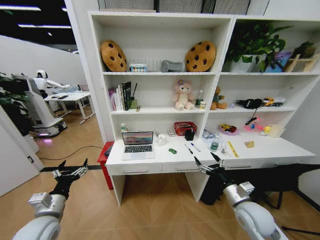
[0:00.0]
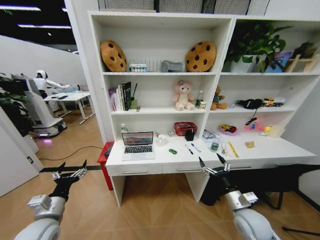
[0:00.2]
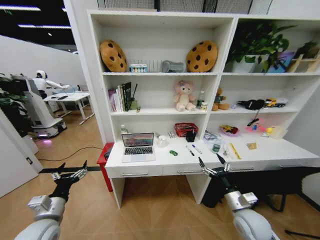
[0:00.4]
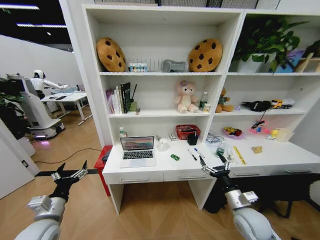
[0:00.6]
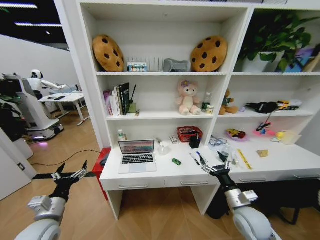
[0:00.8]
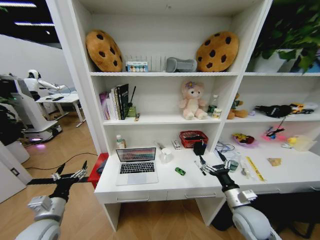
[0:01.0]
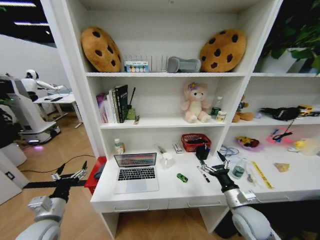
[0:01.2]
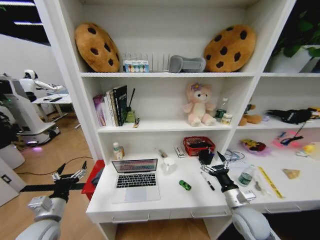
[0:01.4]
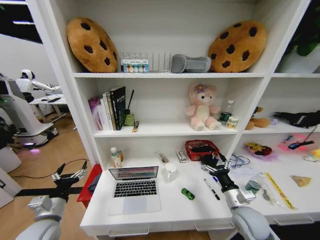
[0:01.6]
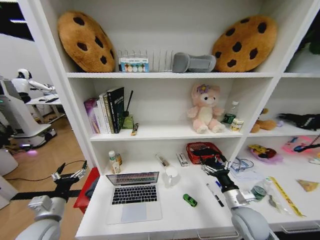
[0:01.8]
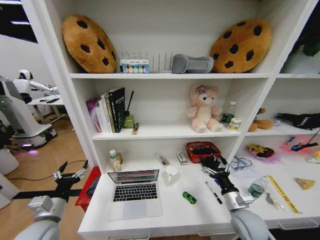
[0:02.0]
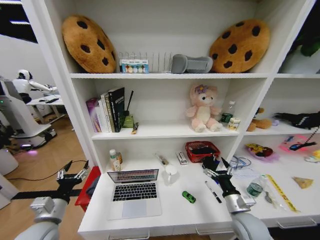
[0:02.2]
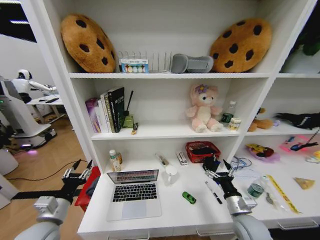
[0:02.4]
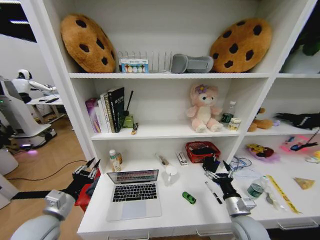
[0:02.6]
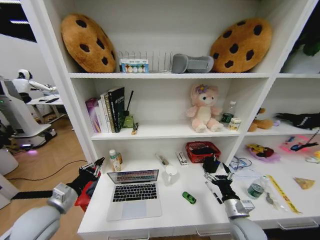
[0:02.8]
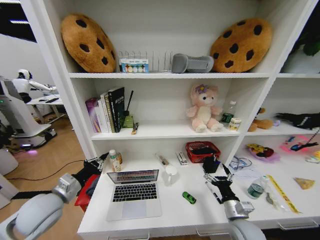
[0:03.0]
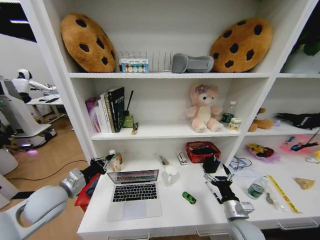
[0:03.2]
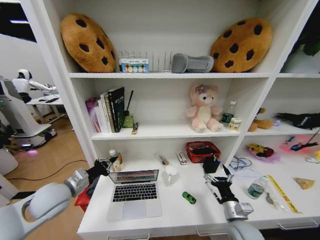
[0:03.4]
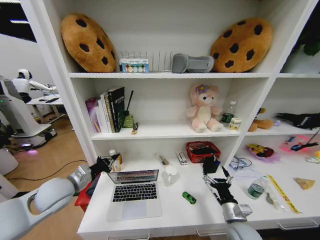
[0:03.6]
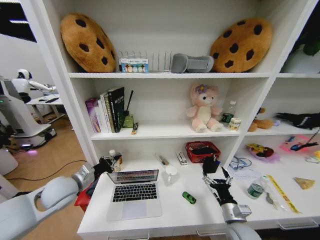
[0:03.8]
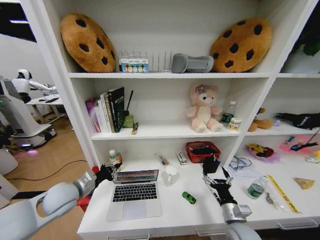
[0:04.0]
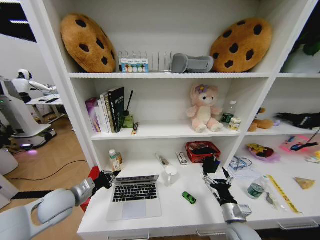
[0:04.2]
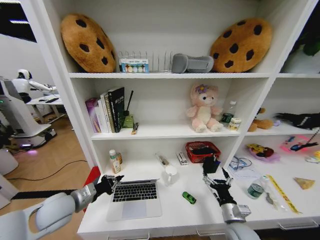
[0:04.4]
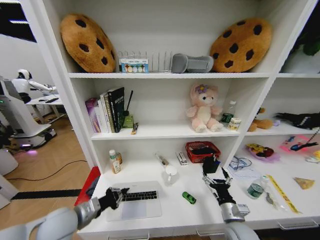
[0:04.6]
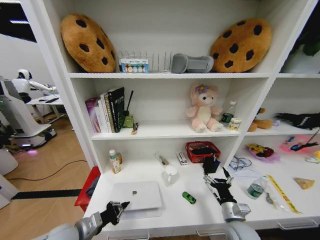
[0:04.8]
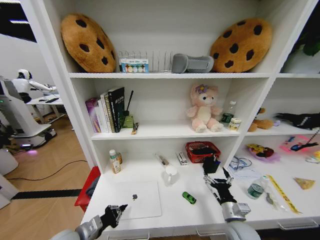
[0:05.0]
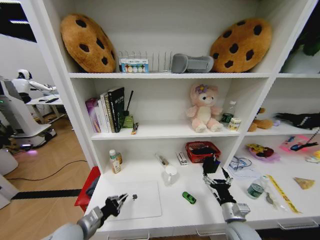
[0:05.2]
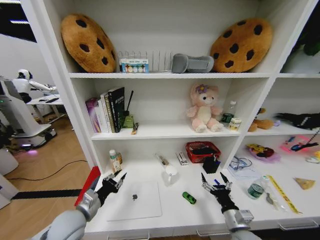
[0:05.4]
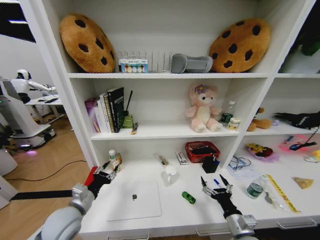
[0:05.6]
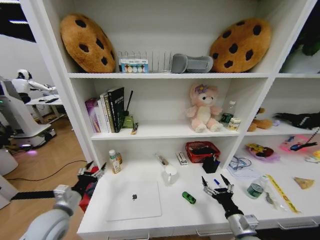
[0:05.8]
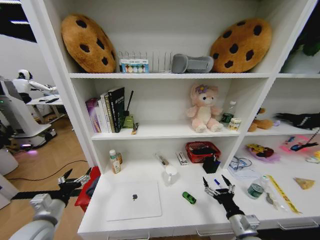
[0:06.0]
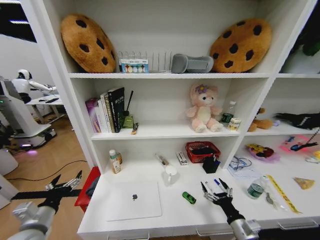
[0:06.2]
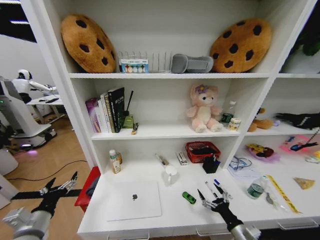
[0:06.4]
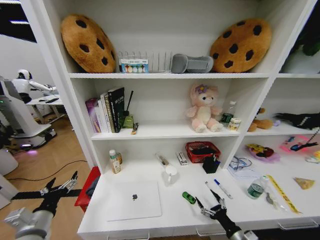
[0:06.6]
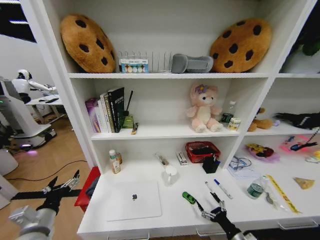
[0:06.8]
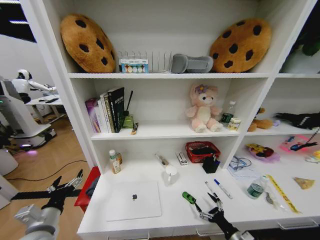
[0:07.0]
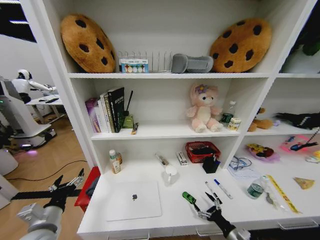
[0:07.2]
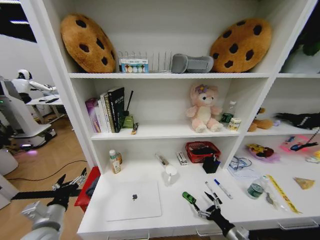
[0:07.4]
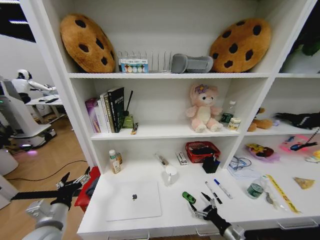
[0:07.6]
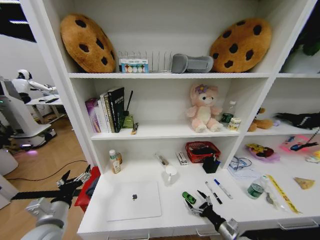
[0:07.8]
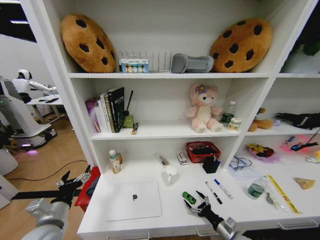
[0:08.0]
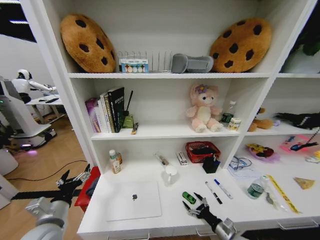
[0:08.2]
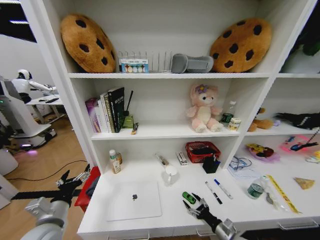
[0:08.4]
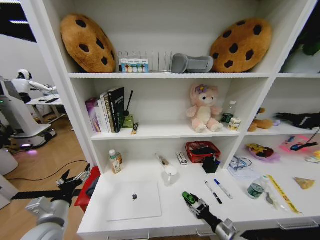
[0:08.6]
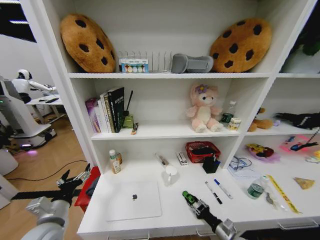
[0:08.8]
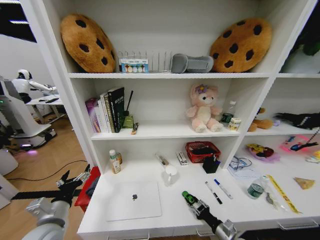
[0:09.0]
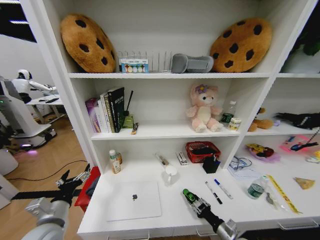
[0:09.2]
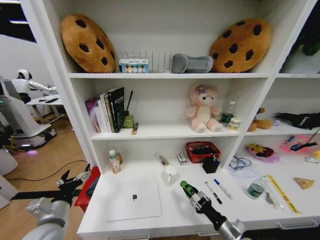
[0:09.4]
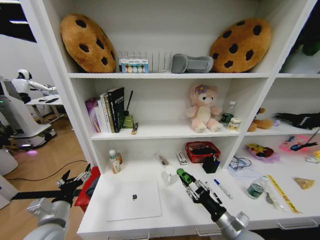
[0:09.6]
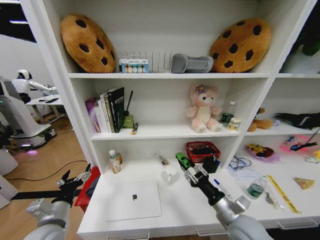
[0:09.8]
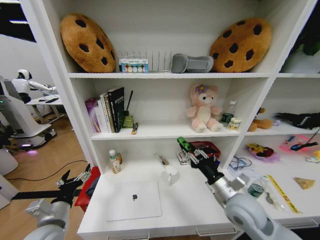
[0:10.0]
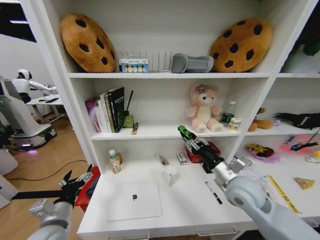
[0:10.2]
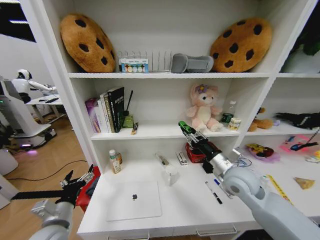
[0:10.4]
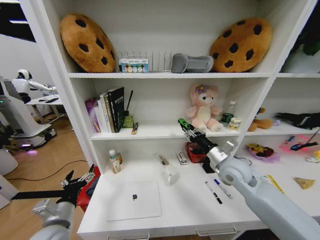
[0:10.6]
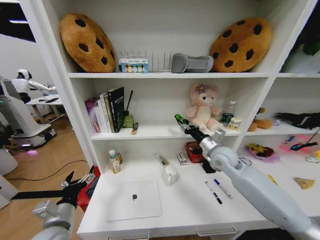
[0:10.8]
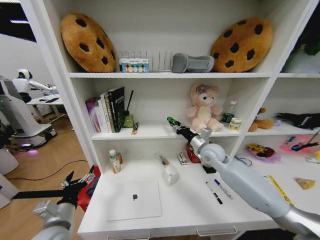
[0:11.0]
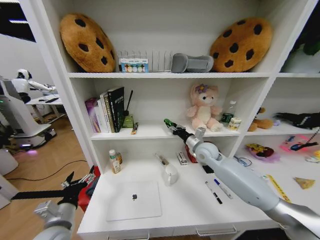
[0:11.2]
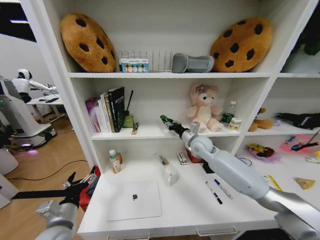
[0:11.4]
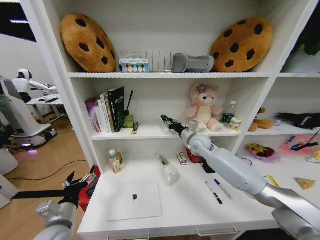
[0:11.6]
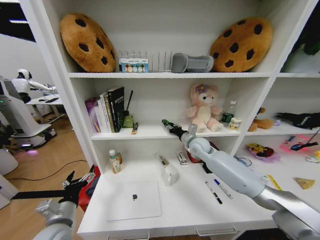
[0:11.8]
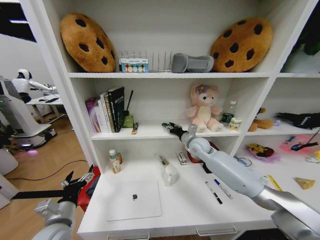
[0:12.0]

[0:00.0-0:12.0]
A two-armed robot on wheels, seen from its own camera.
Task of the whole recording: Organize the objects on the table.
0:01.6 to 0:03.0: The left gripper travels upward by about 5 cm, and closes.
0:04.4 to 0:06.0: The left gripper is displaced backward and to the left by approximately 10 cm, and opens up.
0:06.0 to 0:07.6: The right gripper goes roughly 10 cm downward.
0:07.6 to 0:09.0: The right gripper closes up.
0:09.0 to 0:10.4: The right gripper is displaced upward and forward by about 30 cm.
0:10.4 to 0:12.0: The right gripper is displaced forward by roughly 20 cm.

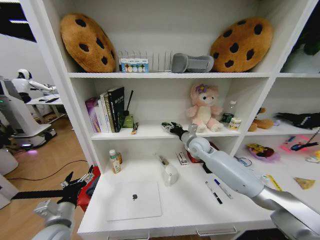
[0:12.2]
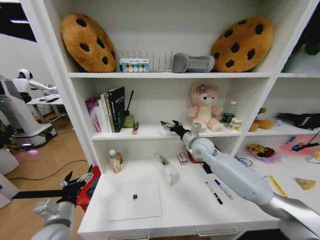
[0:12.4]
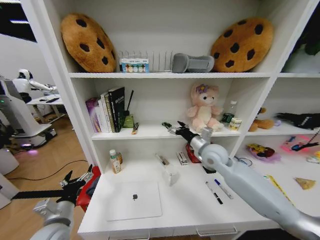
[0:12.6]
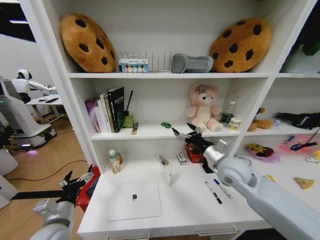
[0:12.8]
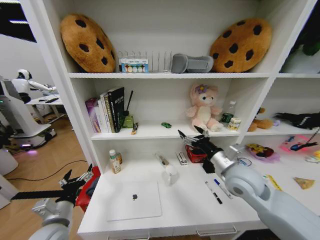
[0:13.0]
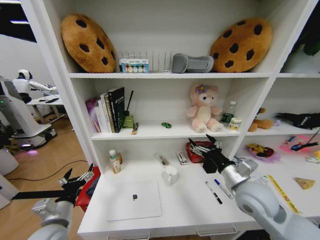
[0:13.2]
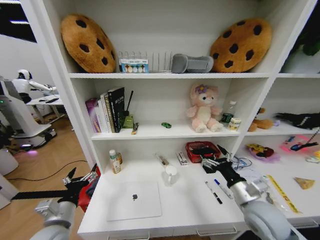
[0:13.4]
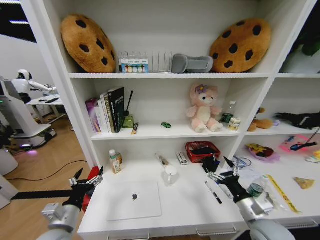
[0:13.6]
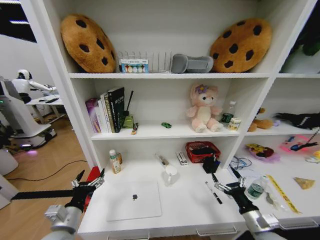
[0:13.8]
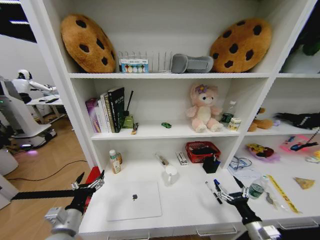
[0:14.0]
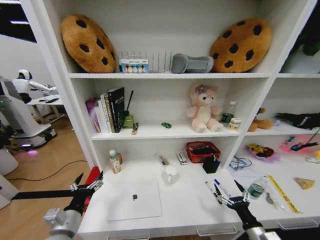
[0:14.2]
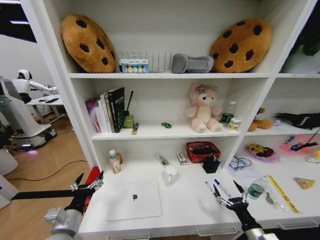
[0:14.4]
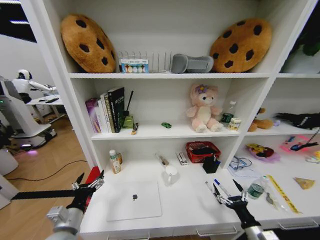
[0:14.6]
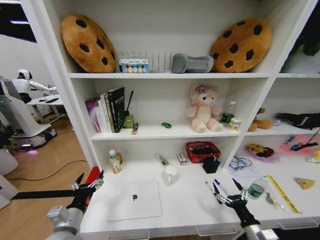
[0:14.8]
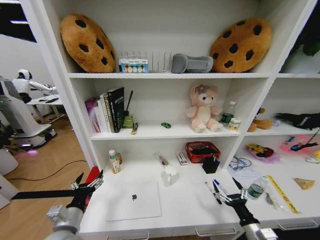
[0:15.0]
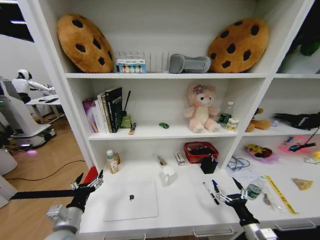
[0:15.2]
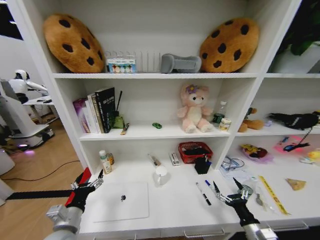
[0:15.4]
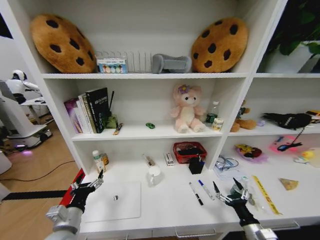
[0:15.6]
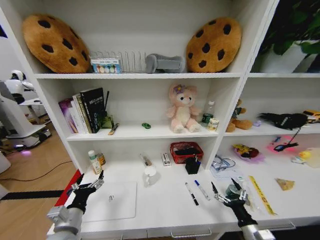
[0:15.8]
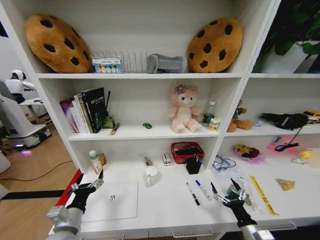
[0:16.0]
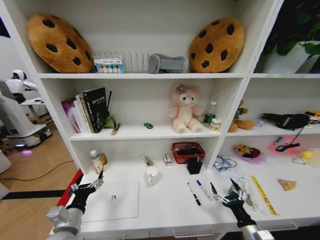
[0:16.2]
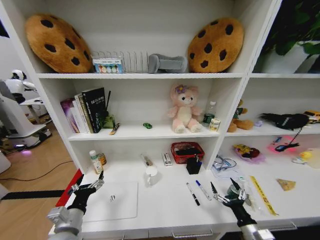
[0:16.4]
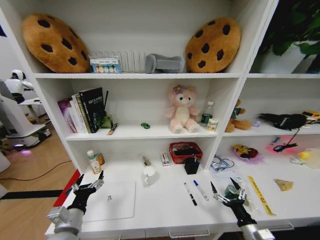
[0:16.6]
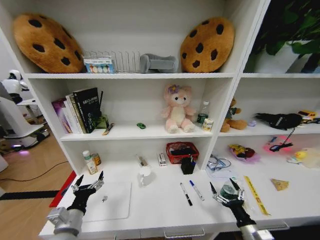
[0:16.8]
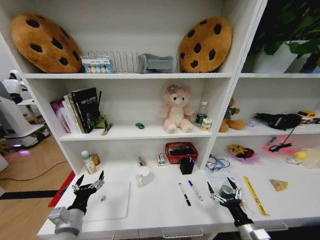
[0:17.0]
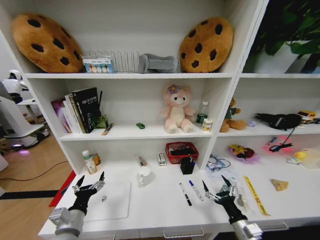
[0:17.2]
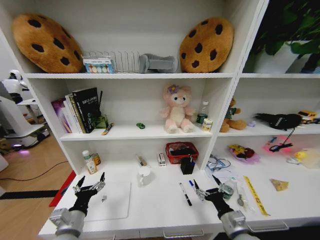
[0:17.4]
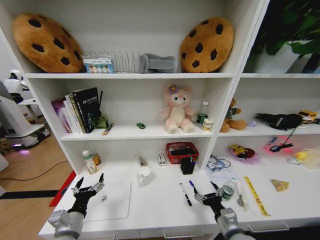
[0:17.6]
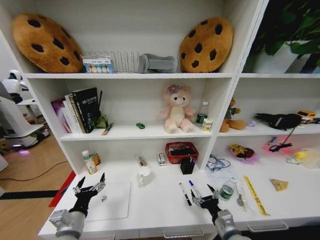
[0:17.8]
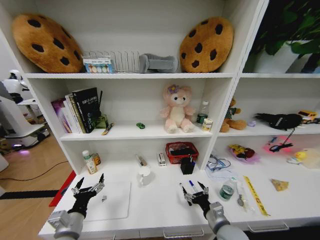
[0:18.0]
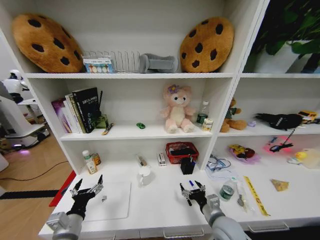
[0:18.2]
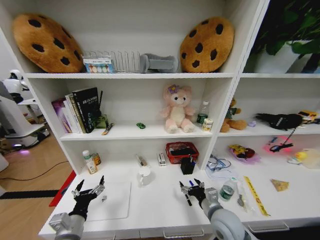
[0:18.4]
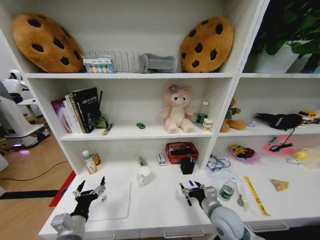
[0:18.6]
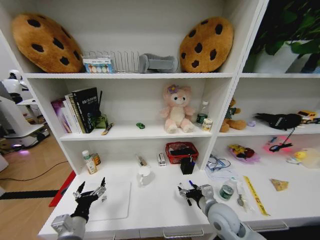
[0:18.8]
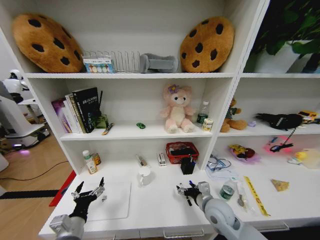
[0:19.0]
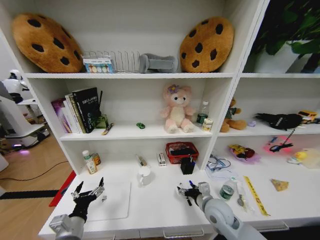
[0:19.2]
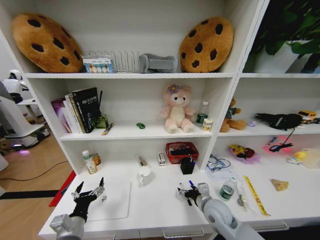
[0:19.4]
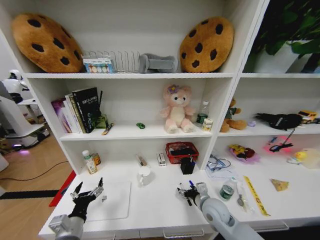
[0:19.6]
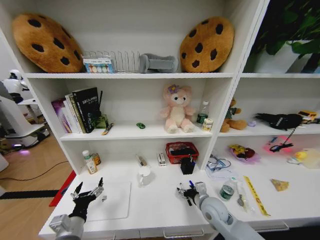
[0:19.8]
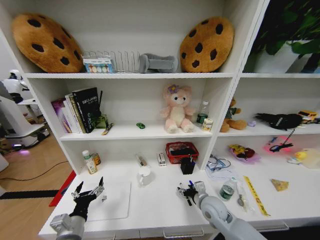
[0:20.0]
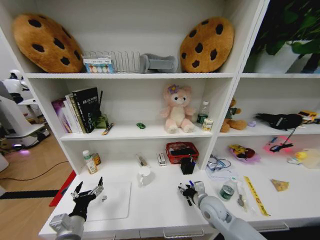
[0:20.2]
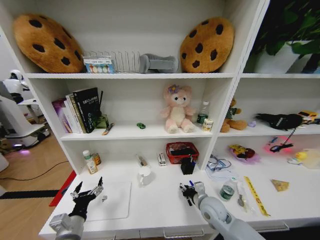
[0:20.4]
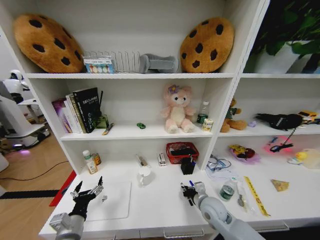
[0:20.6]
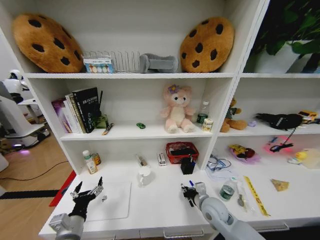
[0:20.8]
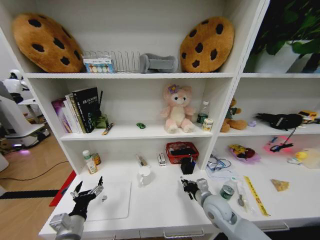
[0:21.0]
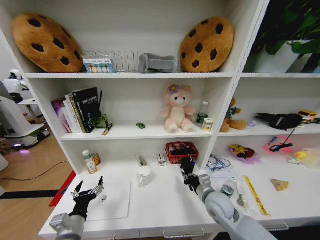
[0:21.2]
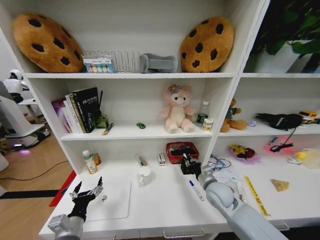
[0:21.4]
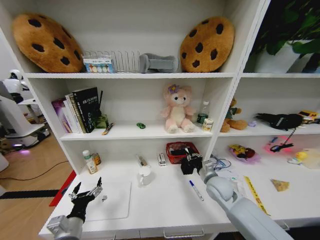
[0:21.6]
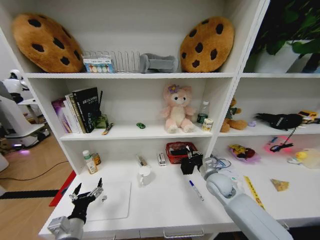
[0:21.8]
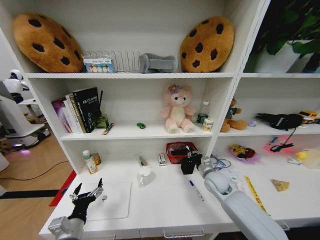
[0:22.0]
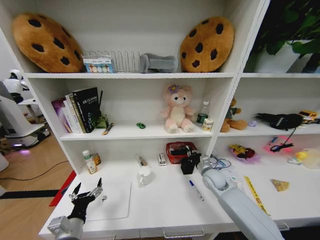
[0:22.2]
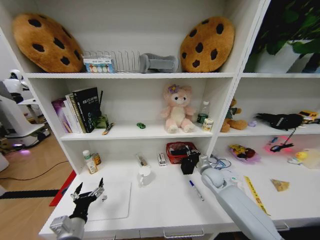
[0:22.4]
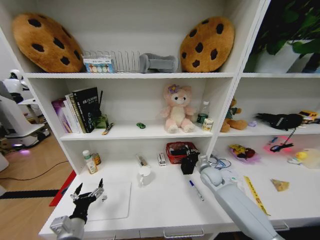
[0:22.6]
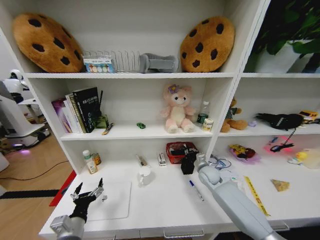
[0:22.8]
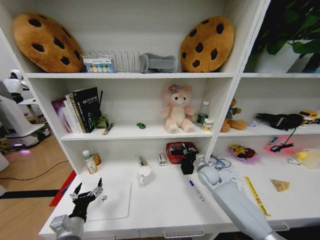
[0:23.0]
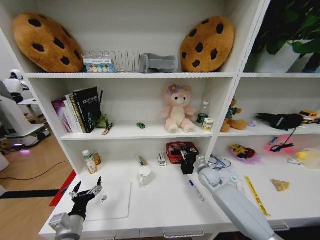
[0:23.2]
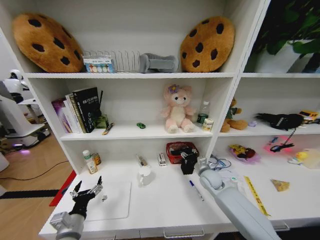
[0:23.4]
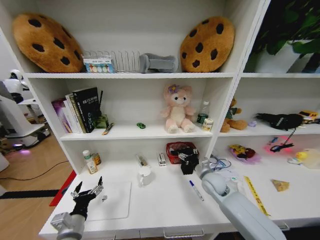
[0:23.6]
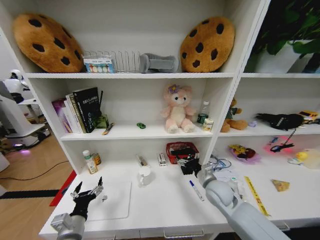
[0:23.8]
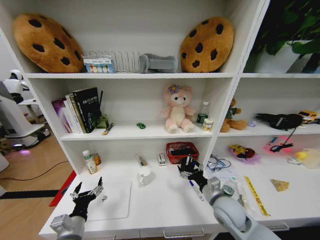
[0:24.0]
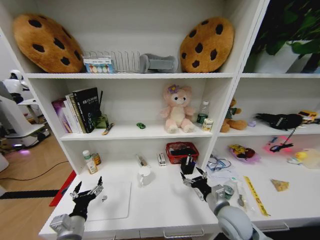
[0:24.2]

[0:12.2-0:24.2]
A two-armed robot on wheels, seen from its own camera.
Task of the whole recording: Organize the objects on the table.
0:12.2 to 0:13.8: The right gripper goes roughly 40 cm backward, to the right and downward.
0:13.8 to 0:15.2: The right gripper changes place by roughly 5 cm.
0:16.6 to 0:18.2: The right gripper goes some 15 cm to the left, forward and upward.
0:18.2 to 0:19.8: The right gripper shifts about 10 cm forward.
0:19.8 to 0:21.2: The right gripper closes its fingers.
0:21.2 to 0:22.6: The right gripper is displaced forward by about 15 cm.
0:22.6 to 0:24.2: The right gripper is displaced backward by about 20 cm, and opens.
